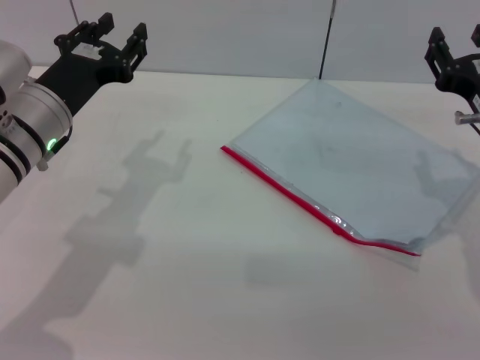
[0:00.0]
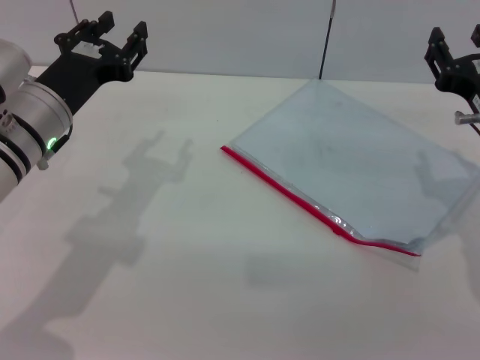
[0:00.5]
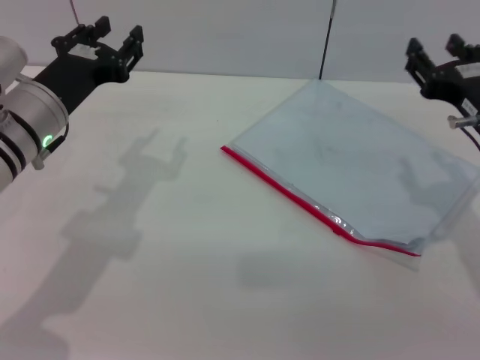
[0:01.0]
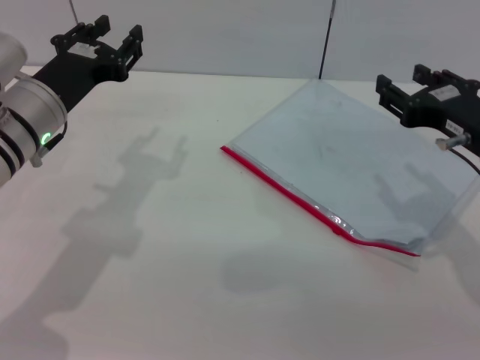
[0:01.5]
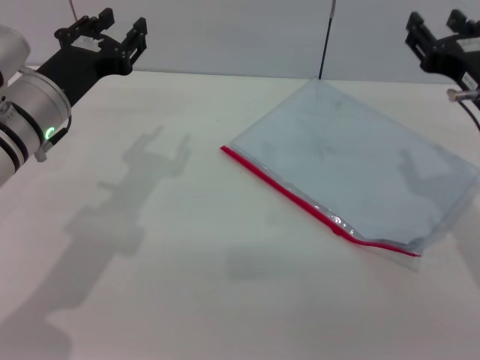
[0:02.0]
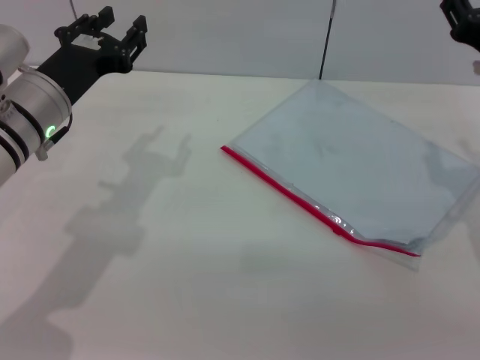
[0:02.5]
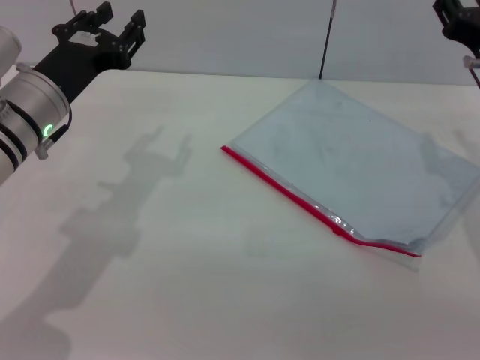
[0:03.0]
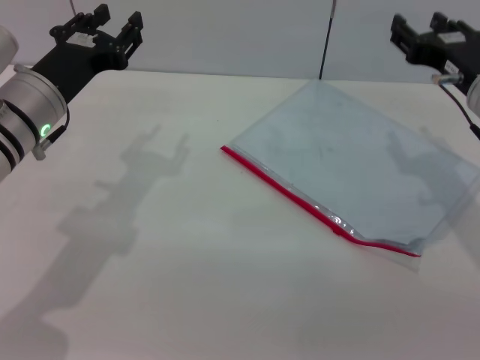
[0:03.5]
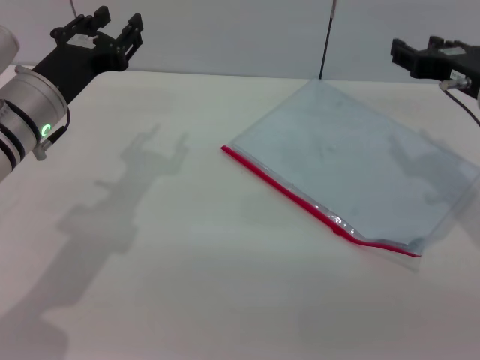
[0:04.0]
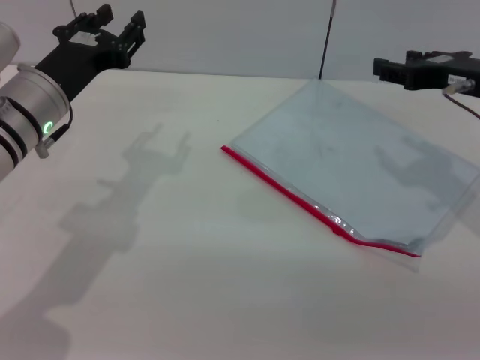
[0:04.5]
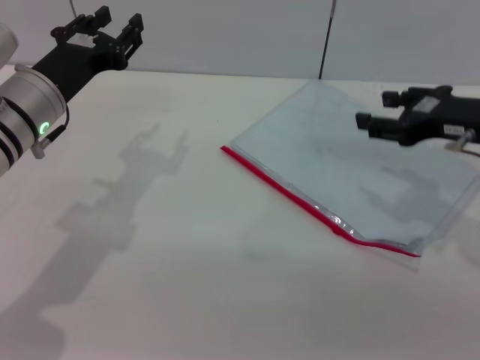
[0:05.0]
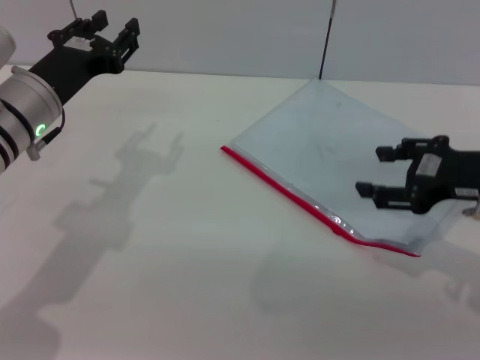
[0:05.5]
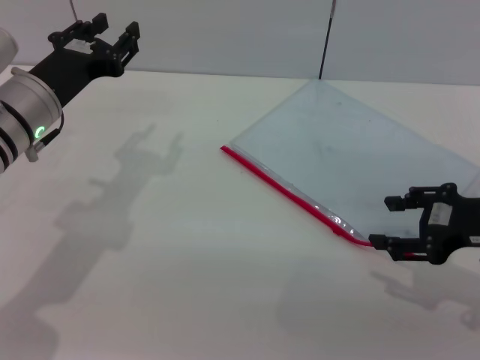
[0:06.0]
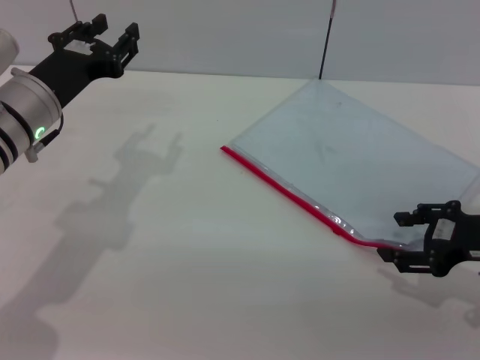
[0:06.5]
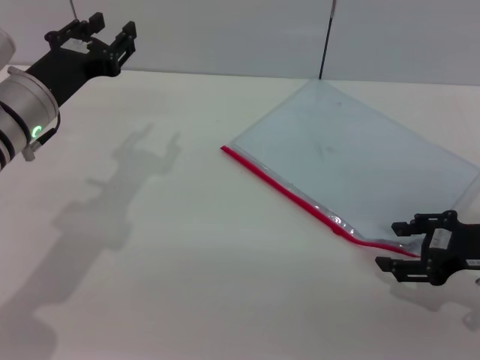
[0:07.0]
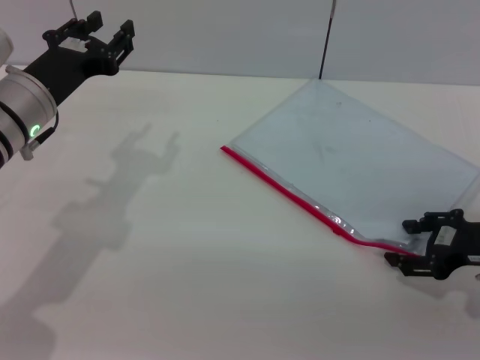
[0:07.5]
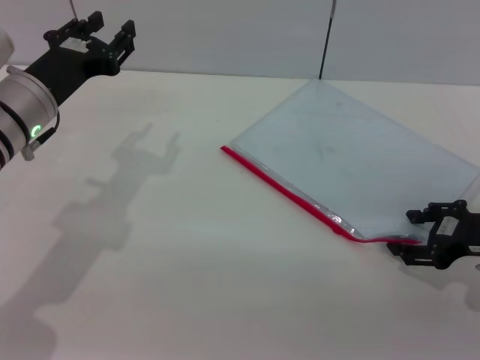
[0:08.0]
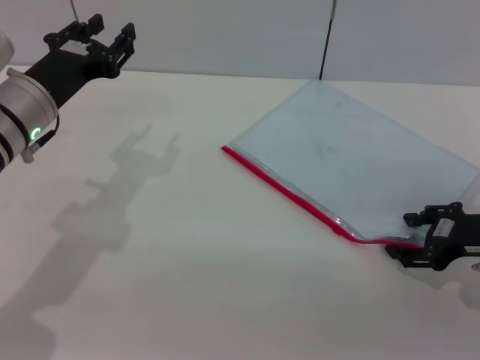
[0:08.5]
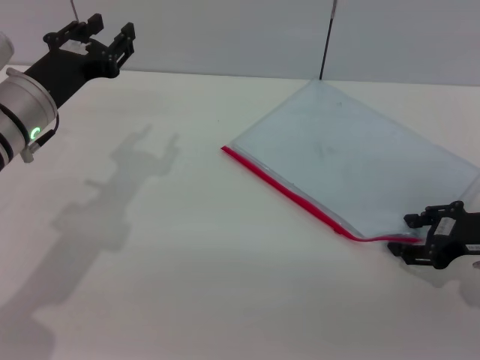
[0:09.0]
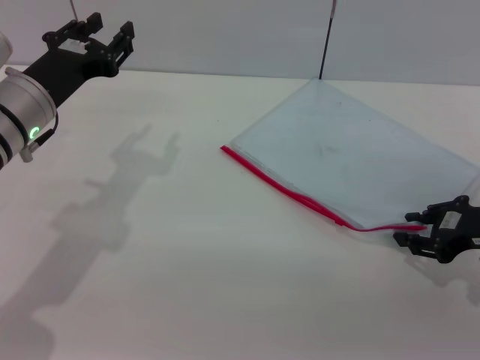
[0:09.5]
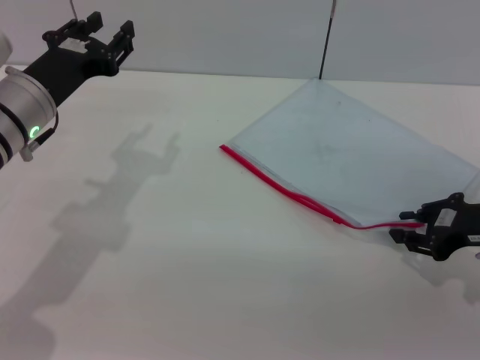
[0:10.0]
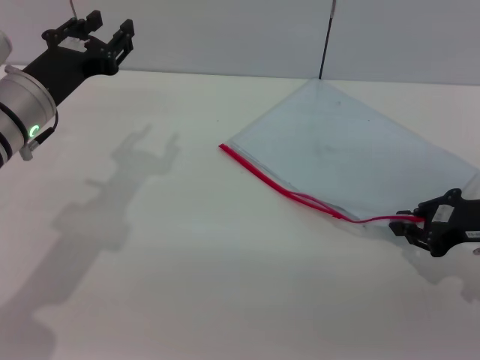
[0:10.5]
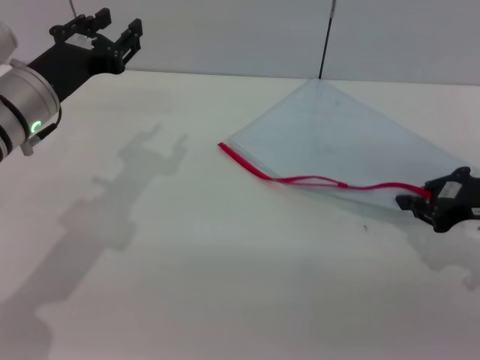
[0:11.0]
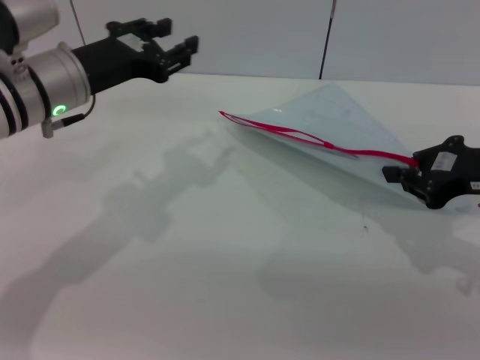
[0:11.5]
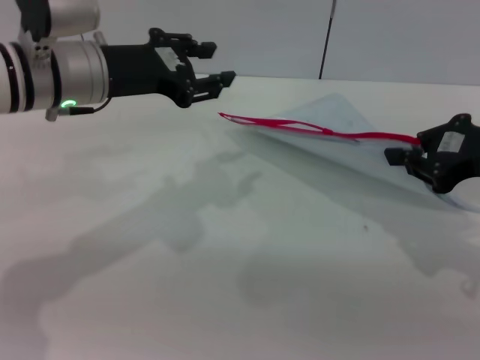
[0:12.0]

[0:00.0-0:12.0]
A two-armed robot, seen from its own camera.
Step, 0:00.0 to 0:11.0: Pick up the transparent plastic bag with the right gripper.
0:02.0 to 0:04.0: The right gripper heads forward, covering some 5 cm.
0:04.0 to 0:06.0: The right gripper shifts roughly 10 cm backward.
0:06.0 to 0:08.0: The right gripper moves some 5 cm.
0:08.0 to 0:10.0: The right gripper closes.
0:10.0 to 0:12.0: The right gripper heads upward, covering some 10 cm, and closes. The left gripper heads upward, covering approximately 5 cm.

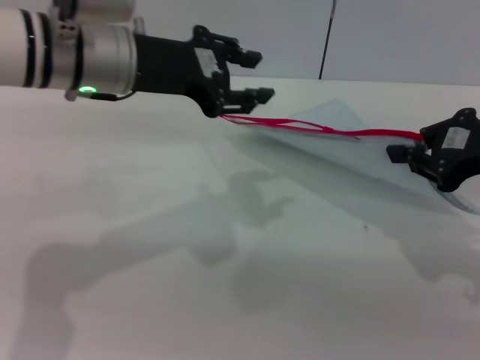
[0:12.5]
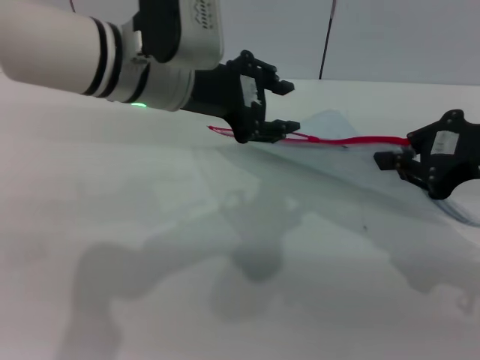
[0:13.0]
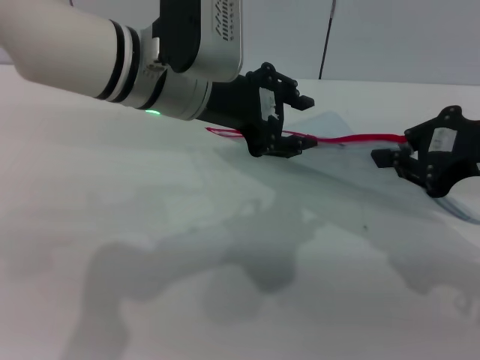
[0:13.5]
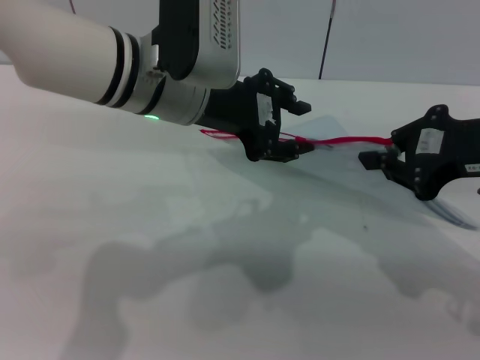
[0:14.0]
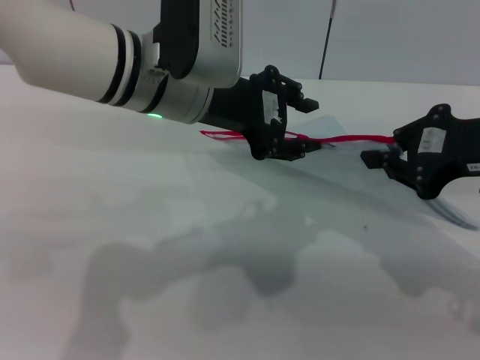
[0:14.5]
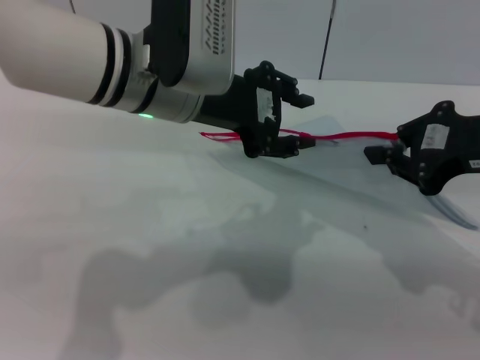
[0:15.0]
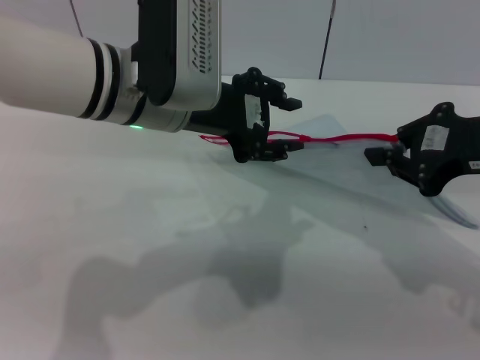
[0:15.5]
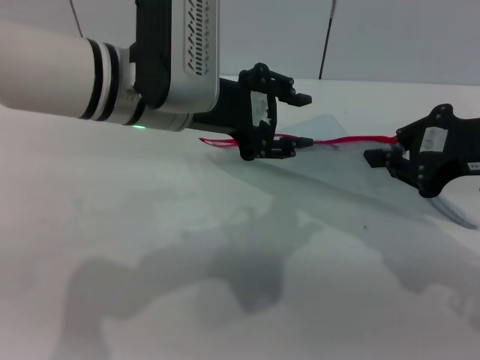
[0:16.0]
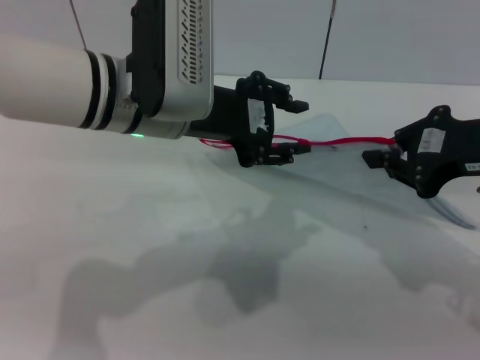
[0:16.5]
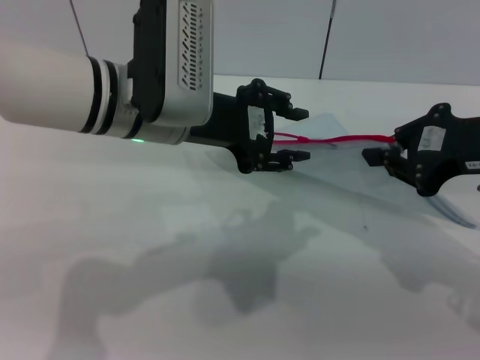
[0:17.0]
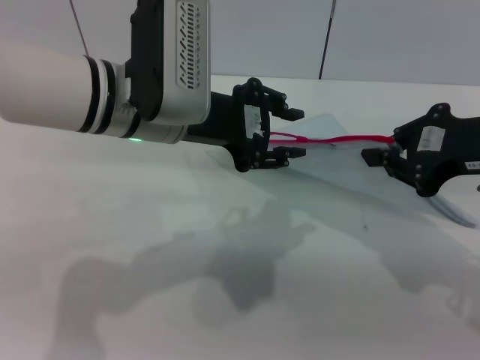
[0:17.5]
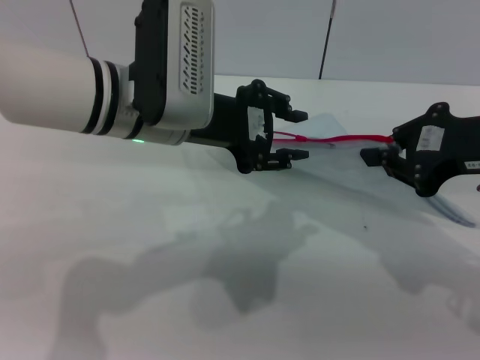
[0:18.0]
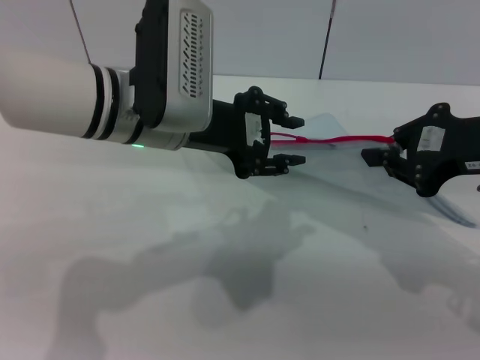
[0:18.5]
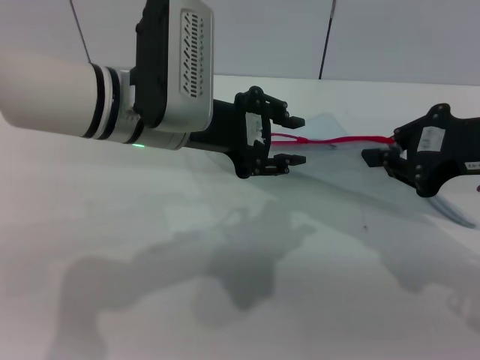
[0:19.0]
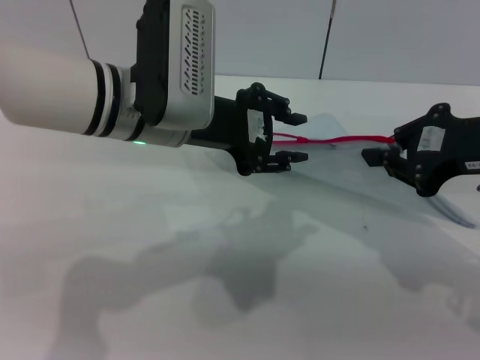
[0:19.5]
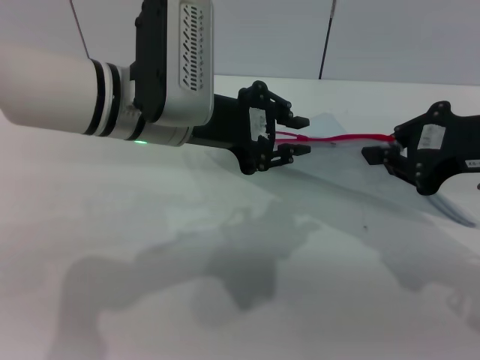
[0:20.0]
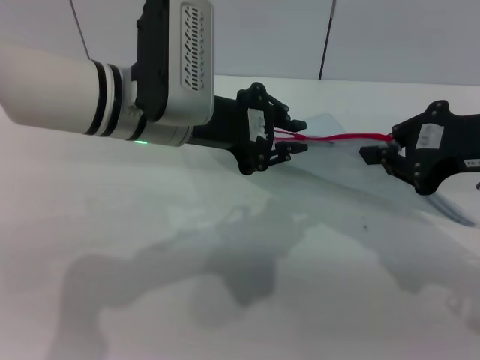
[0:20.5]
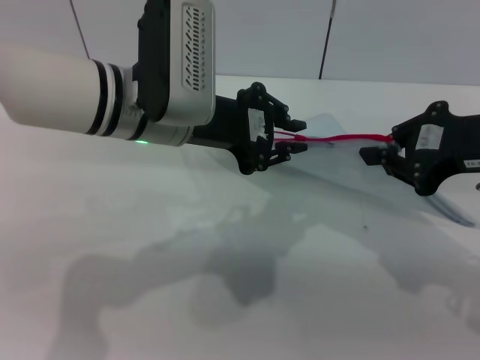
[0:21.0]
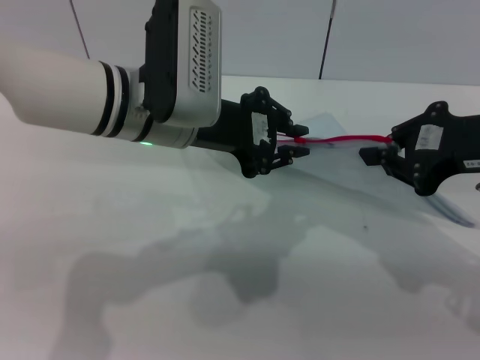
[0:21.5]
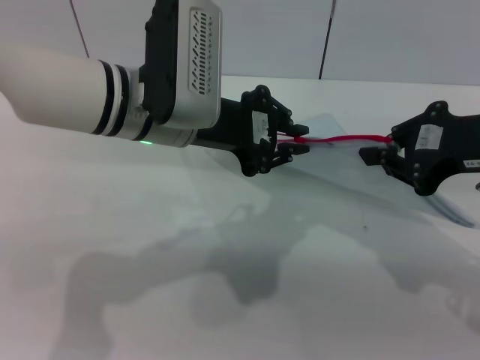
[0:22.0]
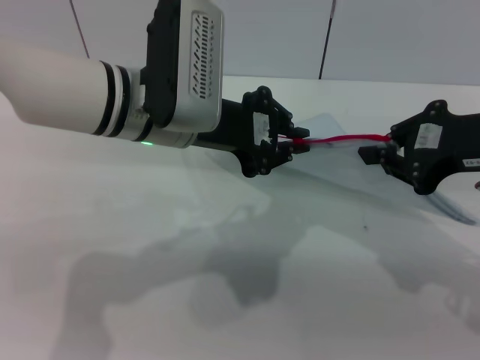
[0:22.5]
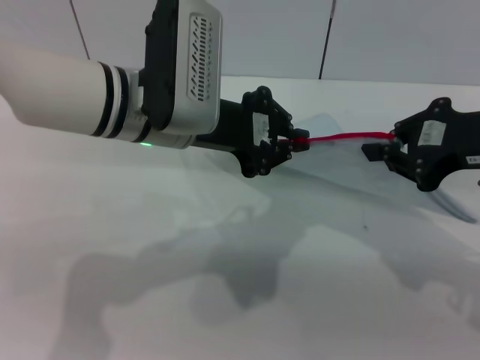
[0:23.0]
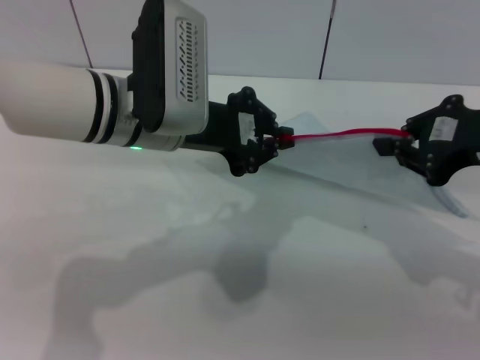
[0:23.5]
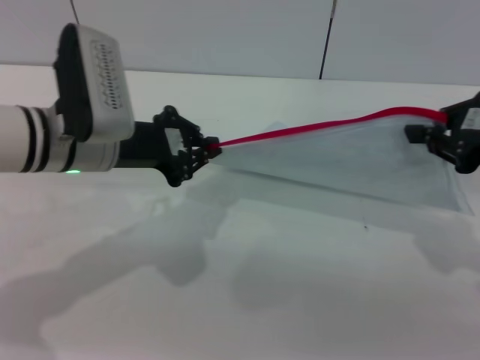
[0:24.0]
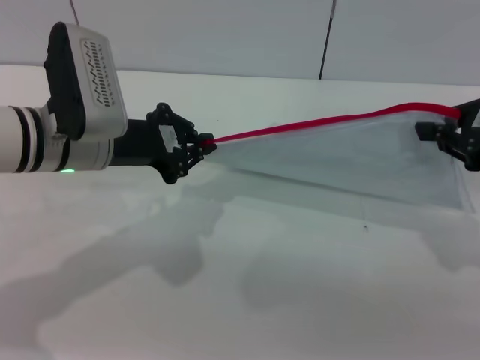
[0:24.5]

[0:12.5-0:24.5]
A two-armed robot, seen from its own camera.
0:12.5 to 0:14.5: The left gripper is displaced to the right by some 5 cm.
0:14.5 to 0:18.5: The grippers move only a little.
0:18.5 to 0:20.5: The left gripper closes.
0:20.5 to 0:22.5: Both grippers stay about where they are.
0:22.5 to 0:24.5: The right gripper is displaced to the right by some 5 cm. The left gripper heads to the left, covering approximately 10 cm.

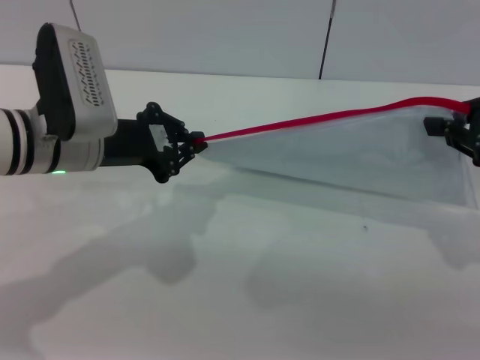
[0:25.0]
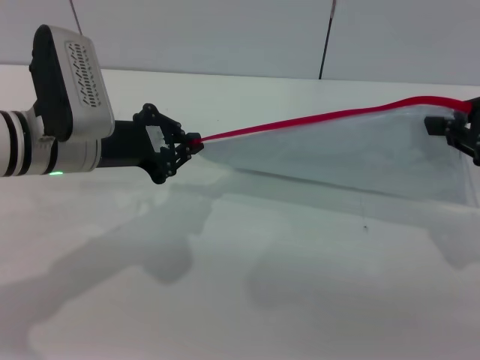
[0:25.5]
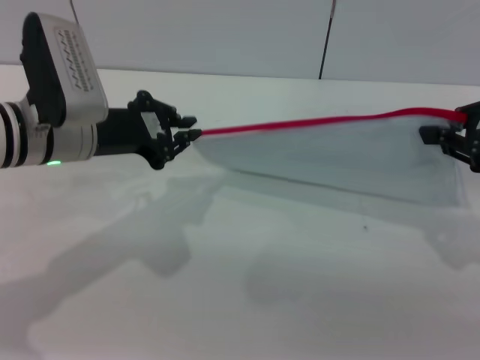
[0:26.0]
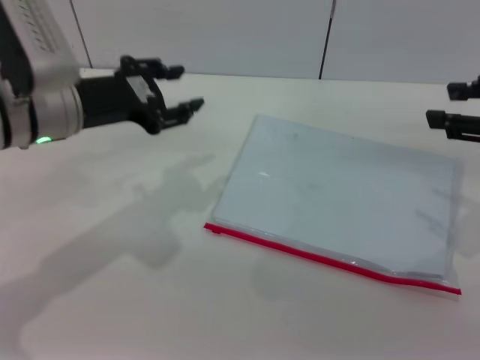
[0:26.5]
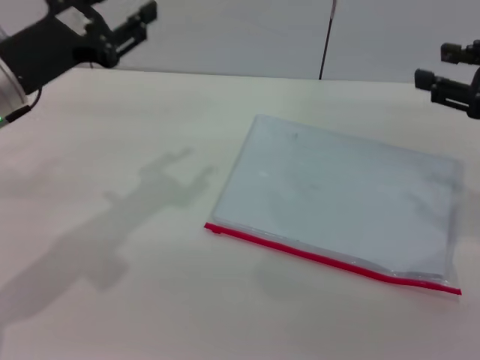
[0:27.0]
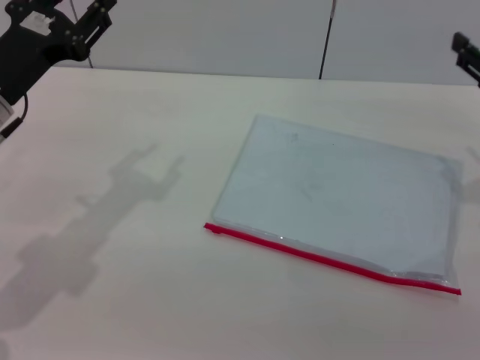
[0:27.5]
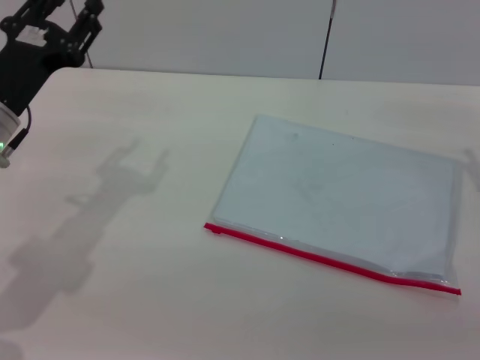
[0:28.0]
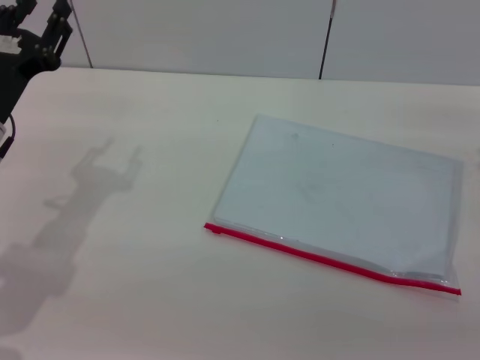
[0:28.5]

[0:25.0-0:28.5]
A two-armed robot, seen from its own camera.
Step, 0:26.5 to 0:27.0: Place the transparent plastic bag.
0:25.0 to 0:27.0: The right gripper opens up. Meanwhile the left gripper changes place by roughly 5 cm, and opens its fingers.
0:27.0 to 0:28.5: The grippers both shift downward by roughly 10 cm.
